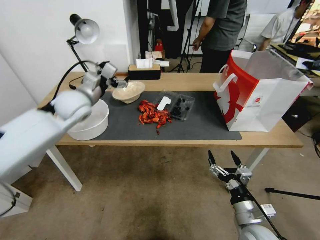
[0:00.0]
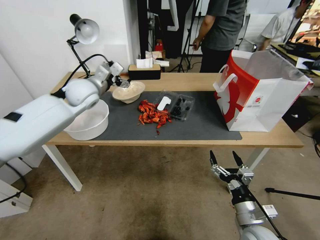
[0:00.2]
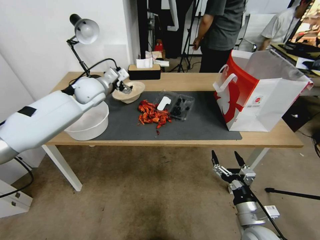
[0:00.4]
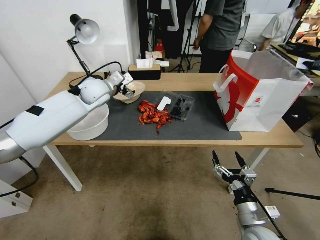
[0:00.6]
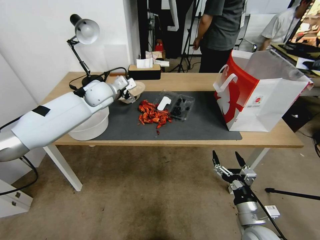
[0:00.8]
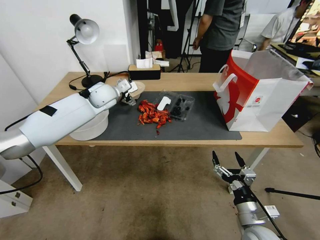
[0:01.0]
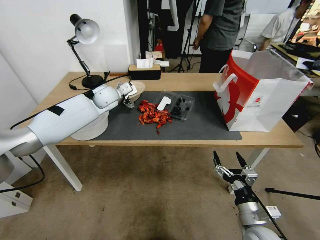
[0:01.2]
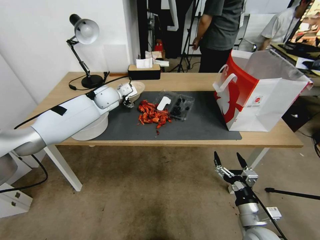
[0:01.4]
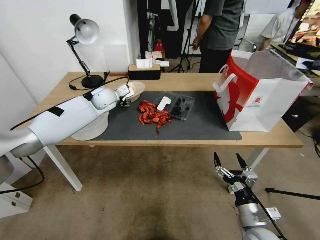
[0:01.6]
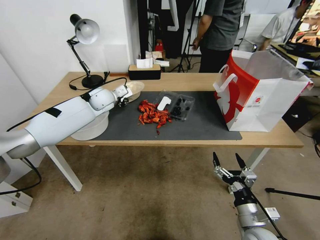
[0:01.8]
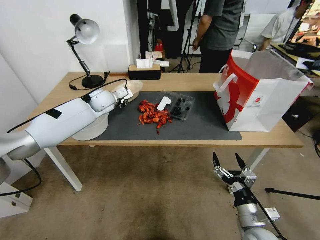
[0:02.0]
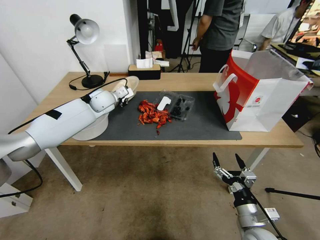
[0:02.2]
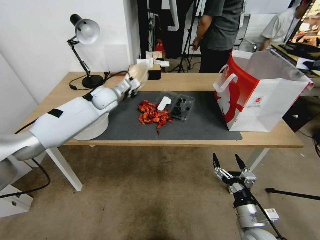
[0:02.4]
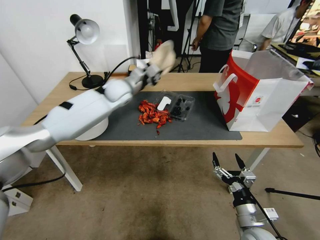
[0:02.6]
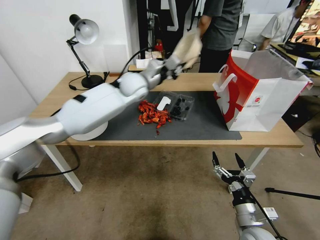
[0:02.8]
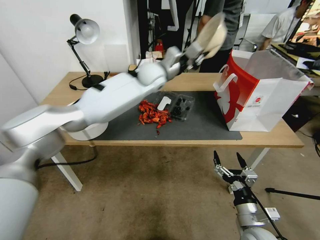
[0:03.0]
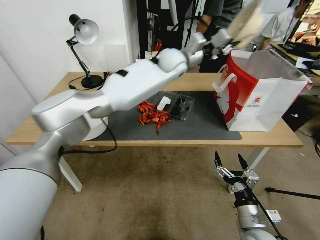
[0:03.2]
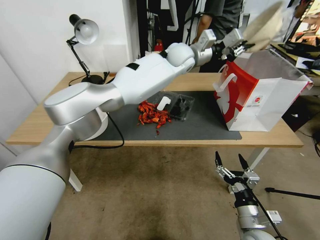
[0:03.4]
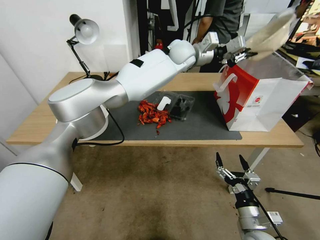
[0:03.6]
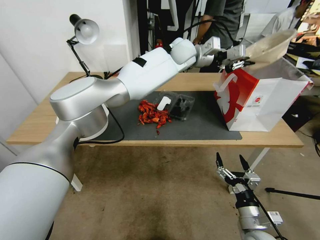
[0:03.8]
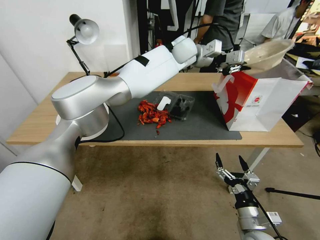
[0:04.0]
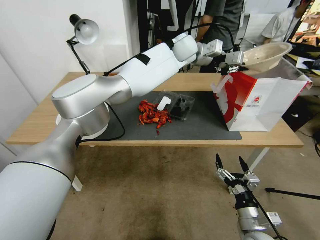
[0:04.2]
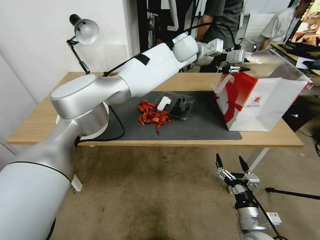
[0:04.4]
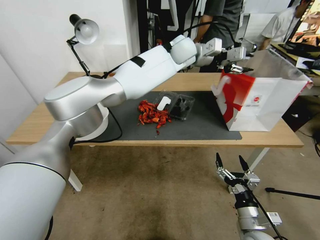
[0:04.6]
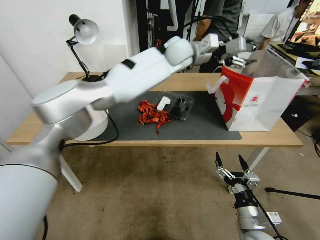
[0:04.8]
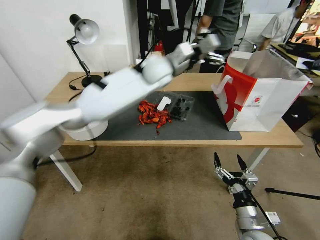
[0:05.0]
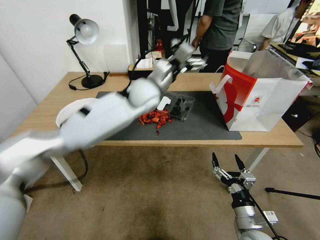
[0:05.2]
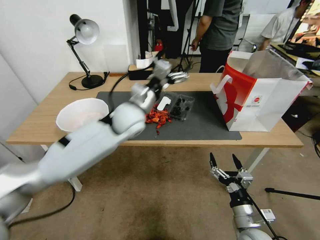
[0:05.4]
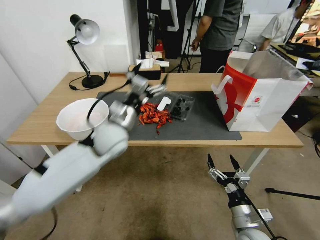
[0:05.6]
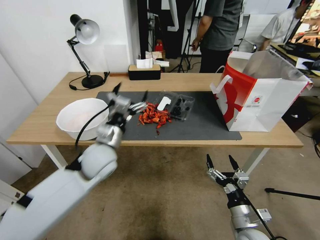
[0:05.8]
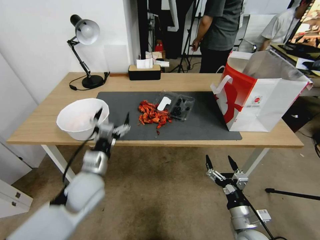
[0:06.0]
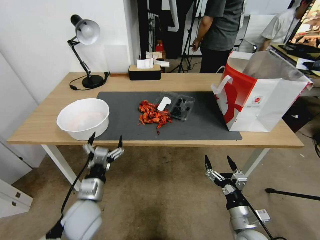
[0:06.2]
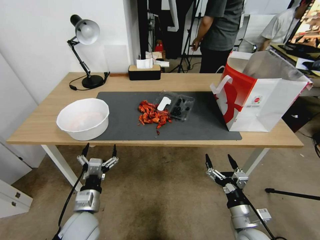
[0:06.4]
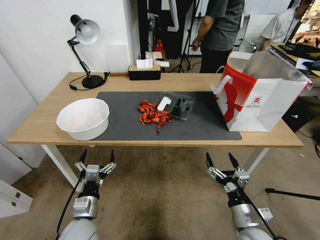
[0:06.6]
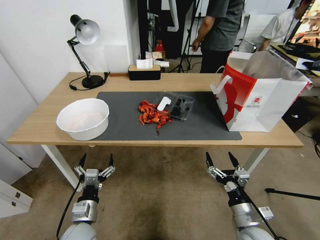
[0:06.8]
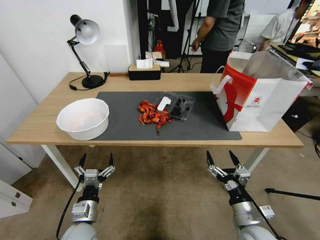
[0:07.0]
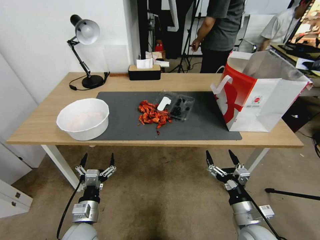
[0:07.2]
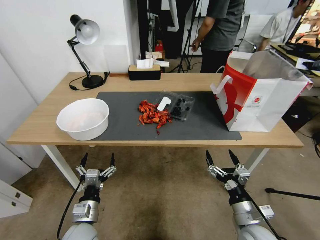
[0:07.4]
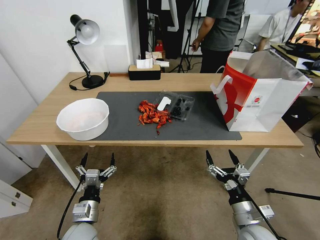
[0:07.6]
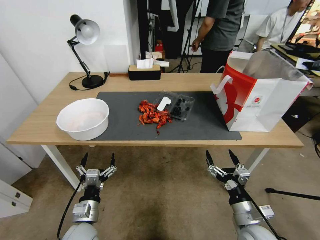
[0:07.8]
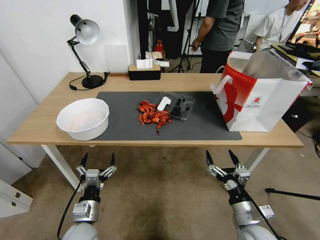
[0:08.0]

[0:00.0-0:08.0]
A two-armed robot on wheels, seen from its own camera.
0:00.0 to 0:01.6: The left gripper travels forward and downward by approximately 15 cm.
0:01.6 to 0:03.2: The left gripper heads to the right and upward, covering about 30 cm, and closes its fingers.
0:03.2 to 0:04.8: The left gripper opens up.
0:04.8 to 0:06.4: The left gripper is displaced backward, downward and to the left by about 60 cm, and opens up.
0:06.4 to 0:08.0: The grippers move only a little.

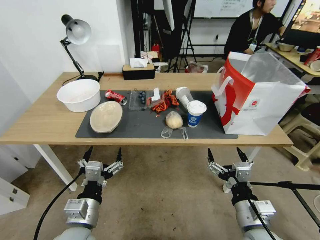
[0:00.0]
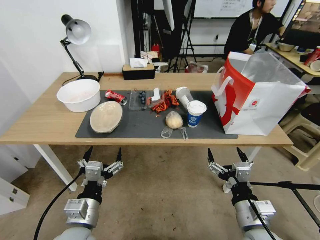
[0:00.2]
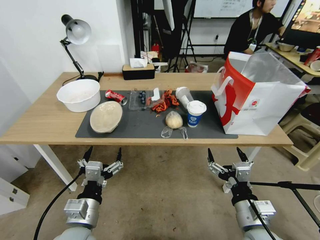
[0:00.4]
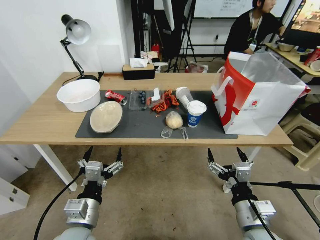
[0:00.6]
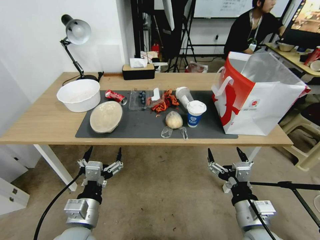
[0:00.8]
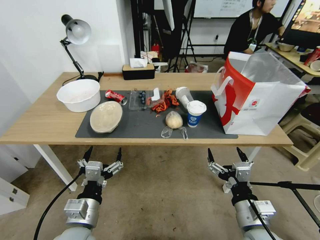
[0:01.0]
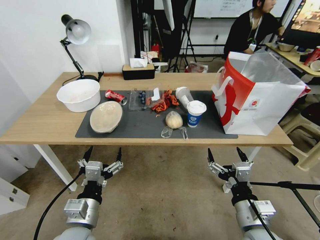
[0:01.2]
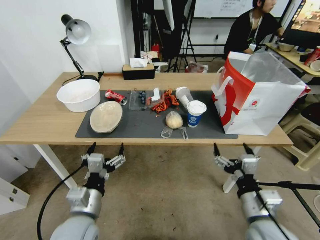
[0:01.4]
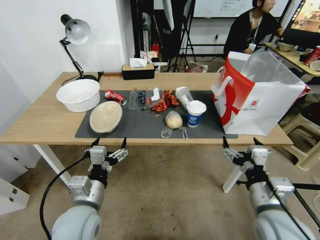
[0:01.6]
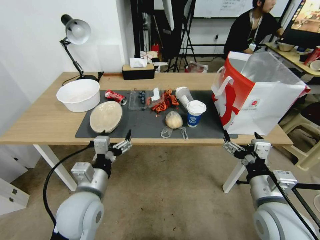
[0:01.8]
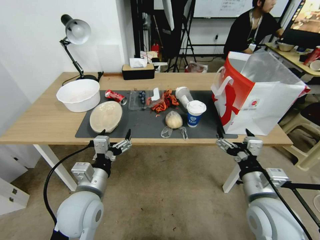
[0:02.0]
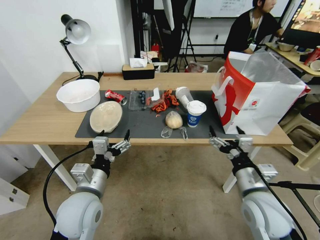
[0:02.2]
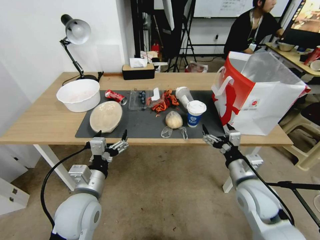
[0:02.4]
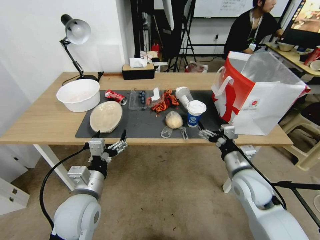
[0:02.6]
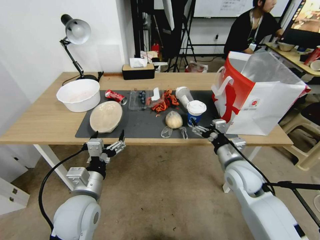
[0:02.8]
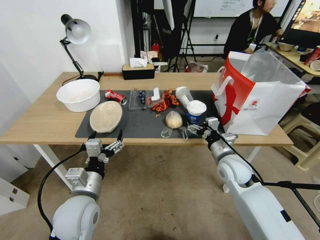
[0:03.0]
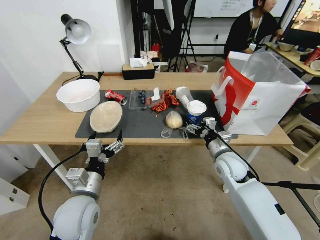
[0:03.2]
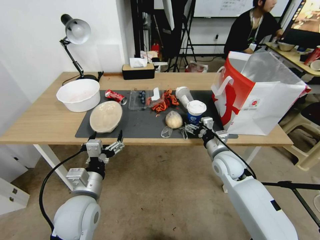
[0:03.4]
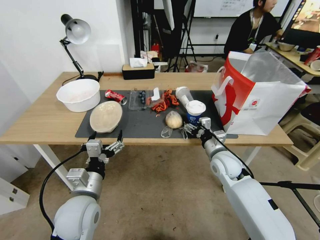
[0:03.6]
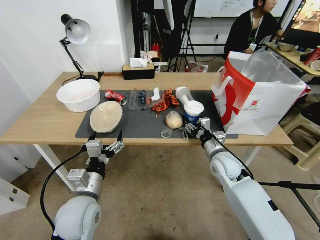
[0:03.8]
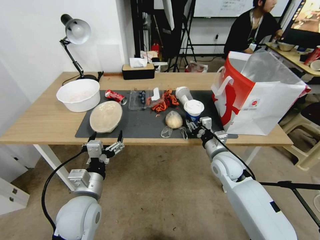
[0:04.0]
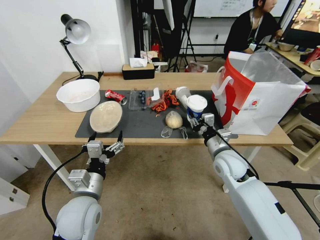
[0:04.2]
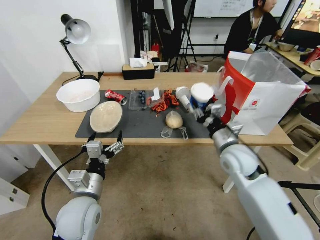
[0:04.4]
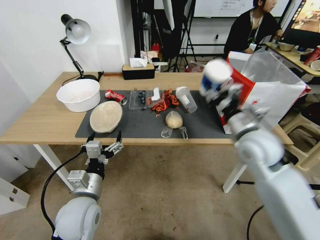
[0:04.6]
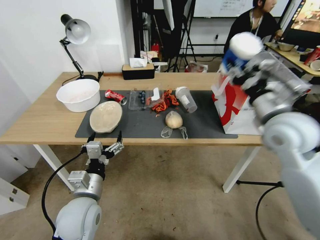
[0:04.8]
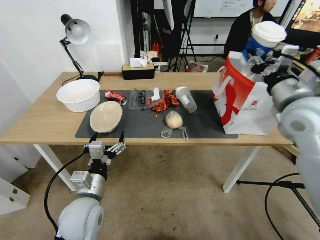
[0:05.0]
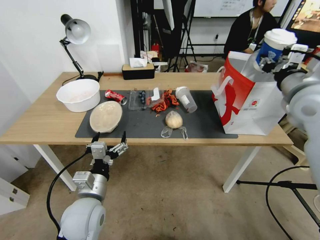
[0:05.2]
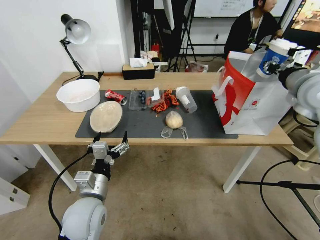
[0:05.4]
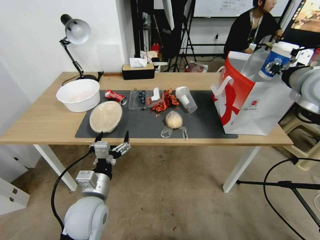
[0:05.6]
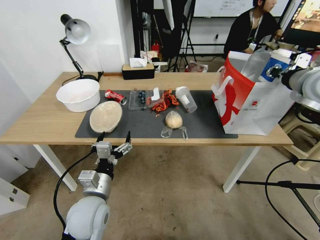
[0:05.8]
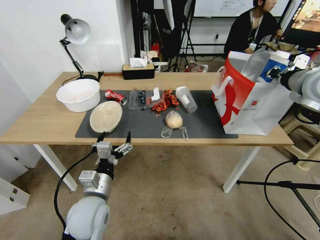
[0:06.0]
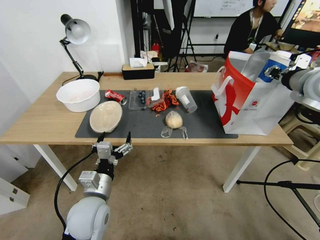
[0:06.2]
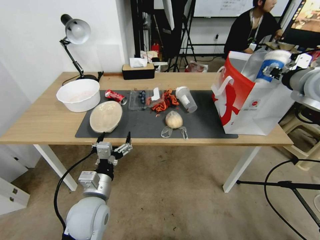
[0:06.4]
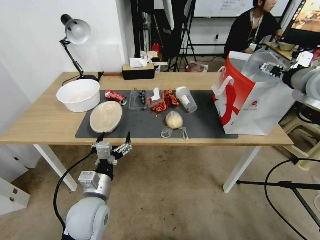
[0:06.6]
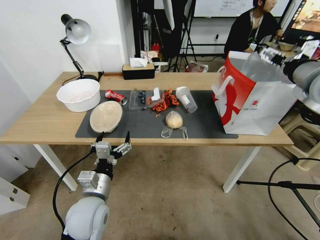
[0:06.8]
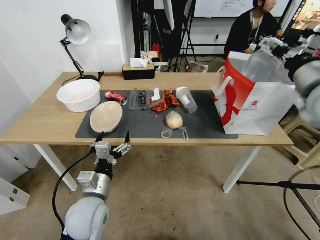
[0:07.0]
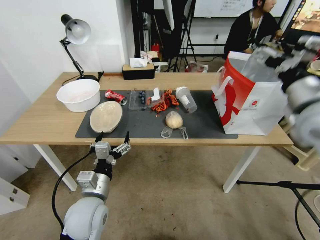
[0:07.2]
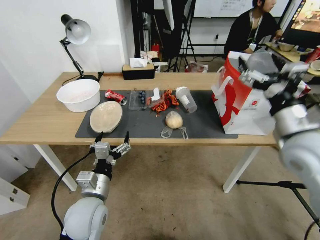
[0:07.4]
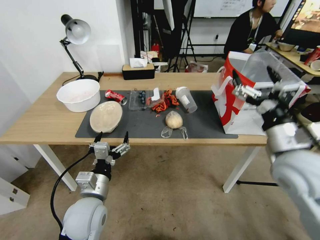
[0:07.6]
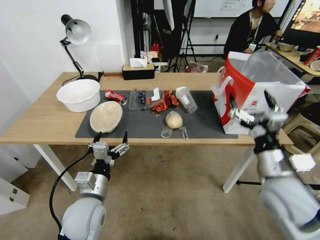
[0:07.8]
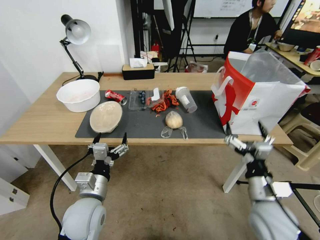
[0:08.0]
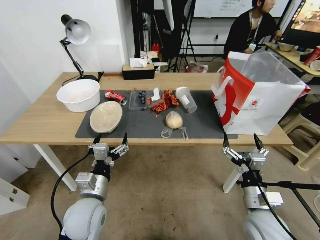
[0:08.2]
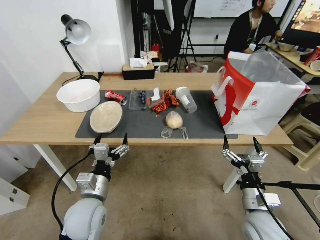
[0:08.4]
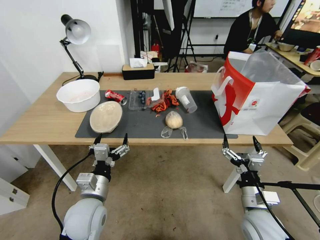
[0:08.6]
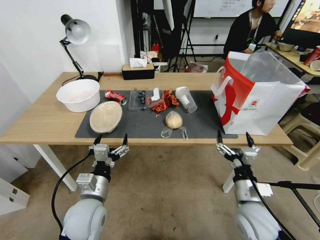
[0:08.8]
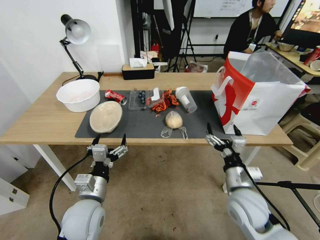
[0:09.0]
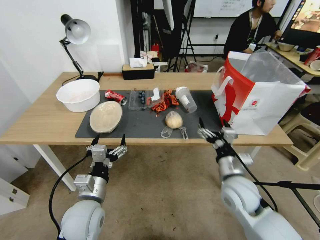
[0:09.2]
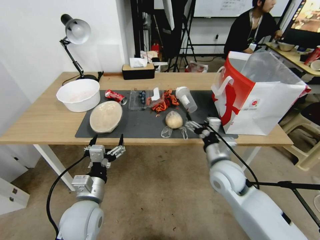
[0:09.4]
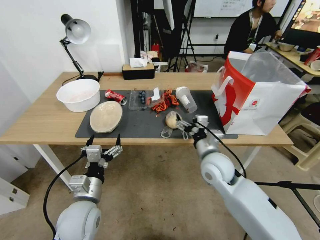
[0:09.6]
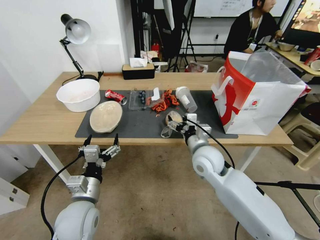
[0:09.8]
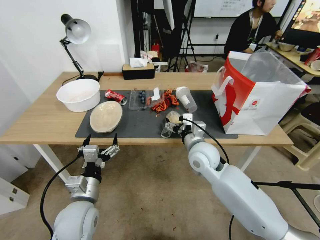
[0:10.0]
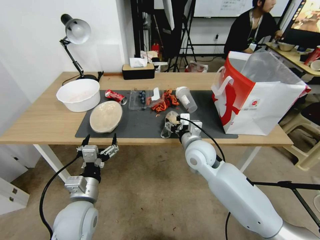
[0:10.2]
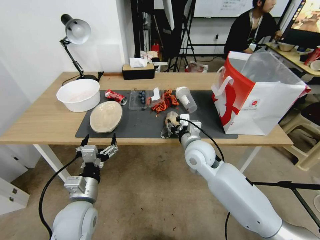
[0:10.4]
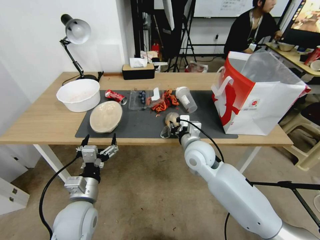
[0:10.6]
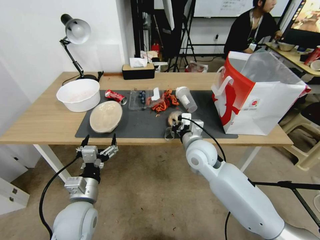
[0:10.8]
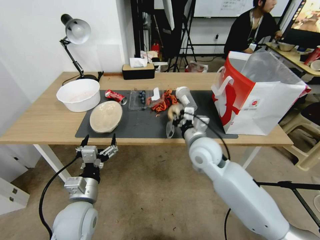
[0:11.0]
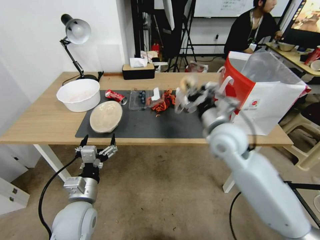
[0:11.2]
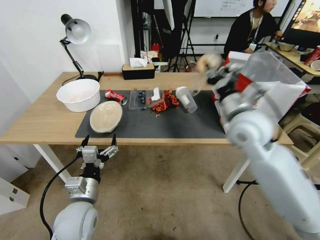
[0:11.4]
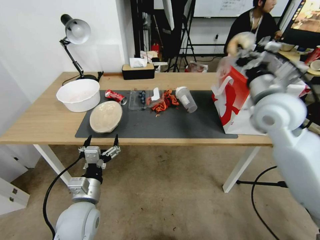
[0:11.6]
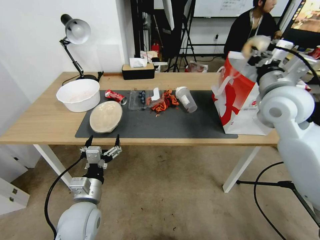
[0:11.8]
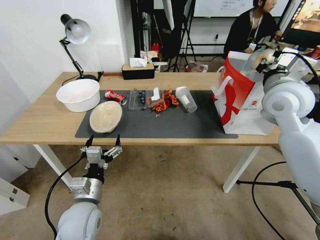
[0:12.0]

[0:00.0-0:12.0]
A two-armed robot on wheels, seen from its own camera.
0:01.6 to 0:03.0: The right gripper travels forward by approximately 15 cm.
0:03.0 to 0:04.4: The right gripper closes up.
0:04.4 to 0:06.0: The right gripper shifts about 30 cm upward and to the right.
0:06.0 to 0:07.6: The right gripper travels backward, downward and to the left by roughly 25 cm, and opens.
0:07.6 to 0:09.0: The right gripper moves downward, approximately 15 cm.
0:09.0 to 0:10.4: The right gripper is displaced forward and to the left by roughly 20 cm, and closes.
0:10.4 to 0:12.0: The right gripper heads upward and to the right, covering roughly 25 cm, and closes.

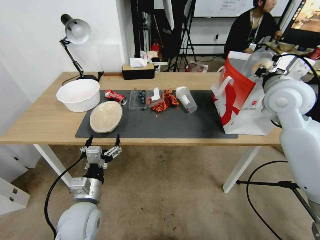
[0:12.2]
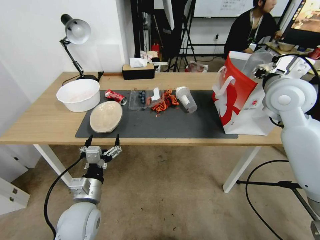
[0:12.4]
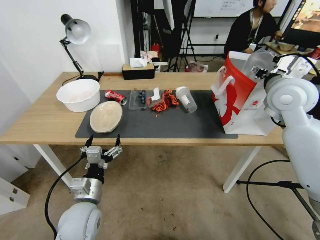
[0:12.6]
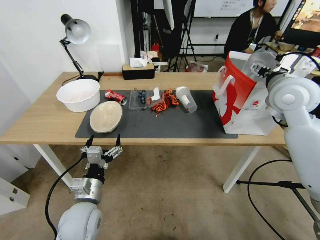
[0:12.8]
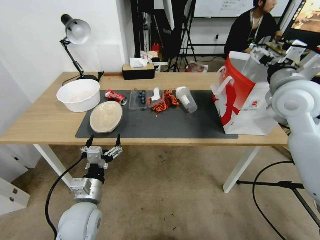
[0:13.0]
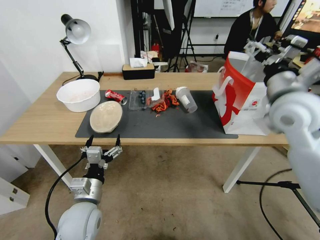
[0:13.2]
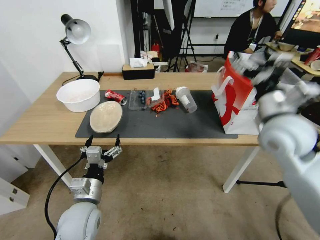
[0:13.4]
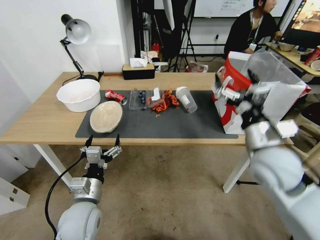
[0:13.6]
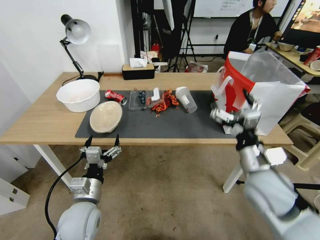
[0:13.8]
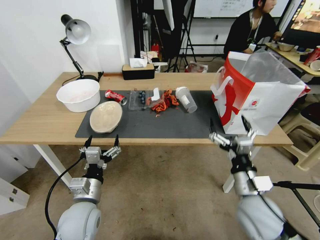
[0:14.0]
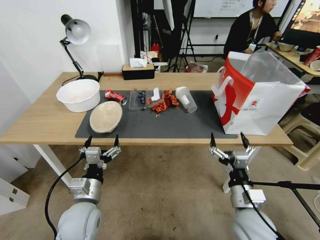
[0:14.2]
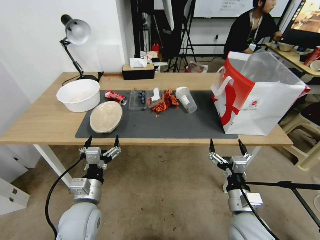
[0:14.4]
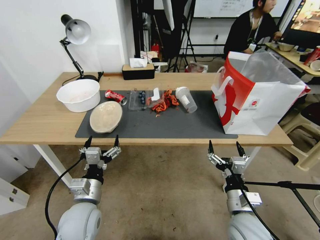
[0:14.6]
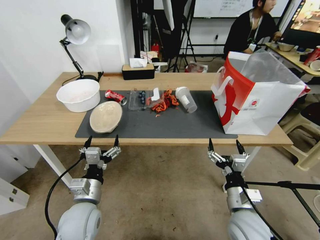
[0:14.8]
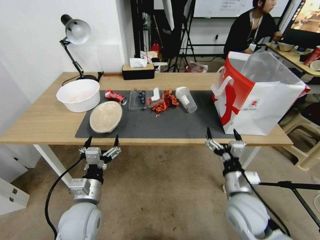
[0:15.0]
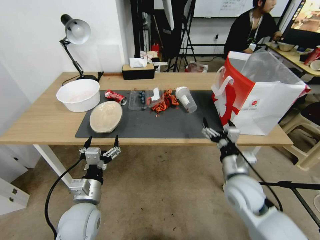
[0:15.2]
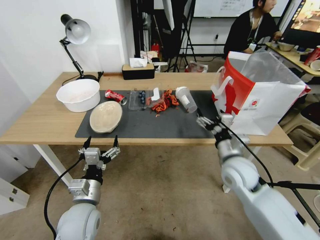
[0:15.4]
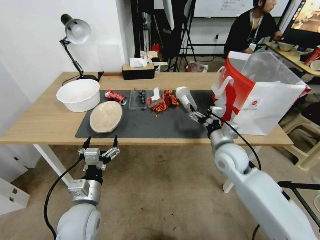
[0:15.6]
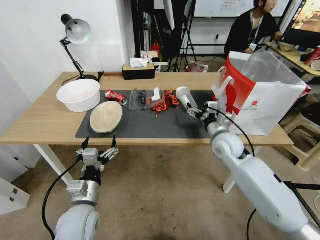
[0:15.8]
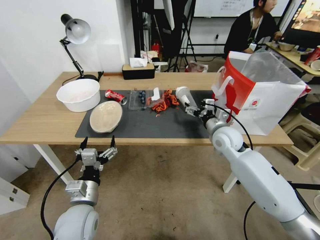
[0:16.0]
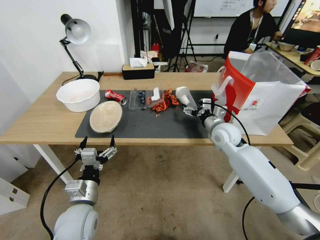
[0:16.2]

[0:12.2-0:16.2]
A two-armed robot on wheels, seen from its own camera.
0:12.2 to 0:13.6: The right gripper moves backward and downward, some 15 cm, and opens.
0:13.6 to 0:14.8: The right gripper moves downward and backward, approximately 20 cm.
0:14.8 to 0:16.2: The right gripper travels forward by approximately 25 cm.
